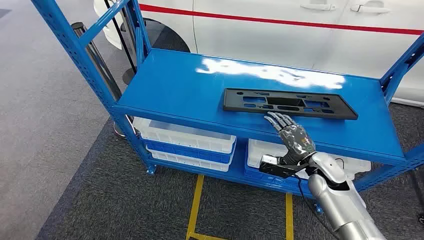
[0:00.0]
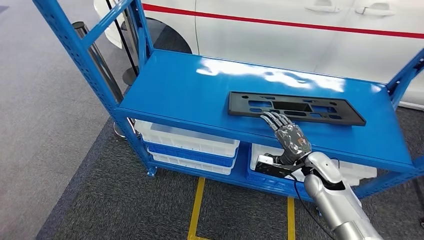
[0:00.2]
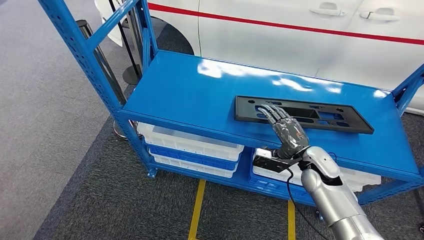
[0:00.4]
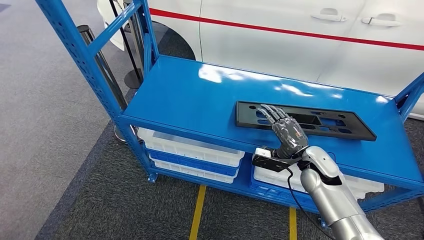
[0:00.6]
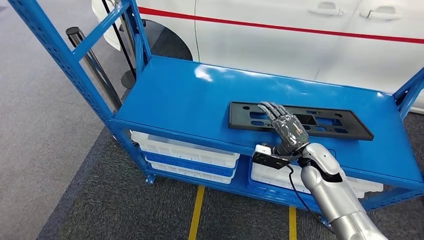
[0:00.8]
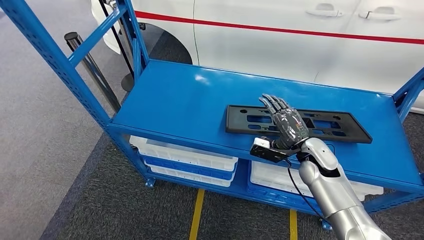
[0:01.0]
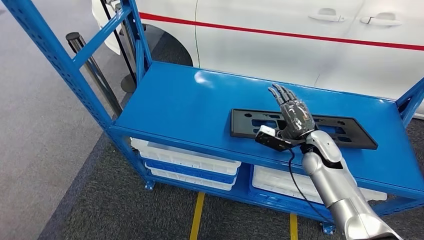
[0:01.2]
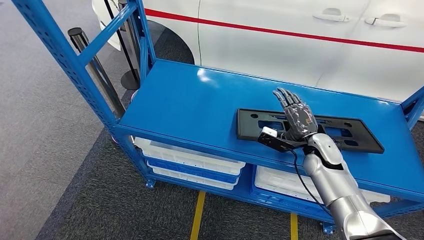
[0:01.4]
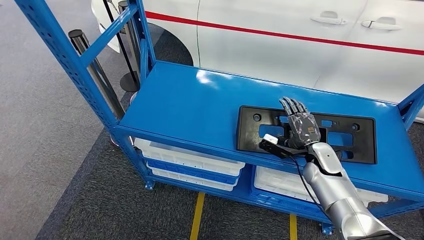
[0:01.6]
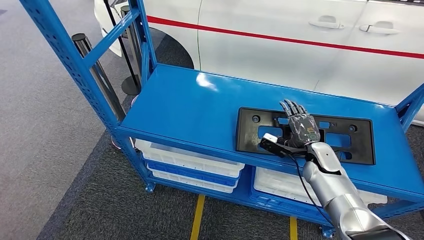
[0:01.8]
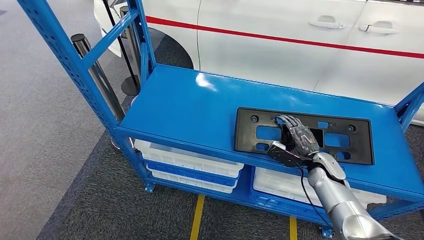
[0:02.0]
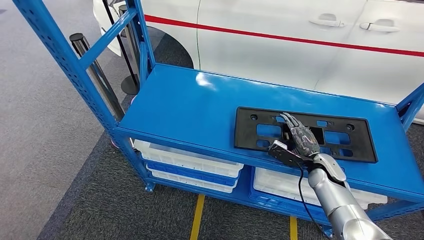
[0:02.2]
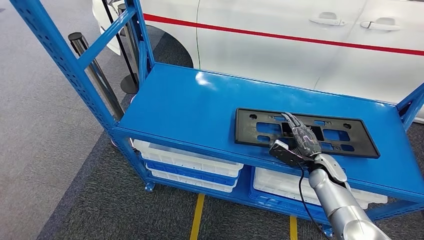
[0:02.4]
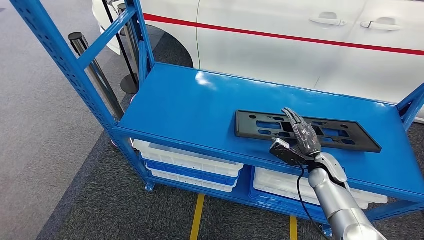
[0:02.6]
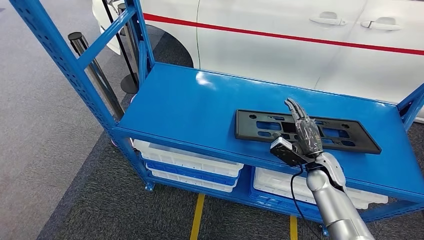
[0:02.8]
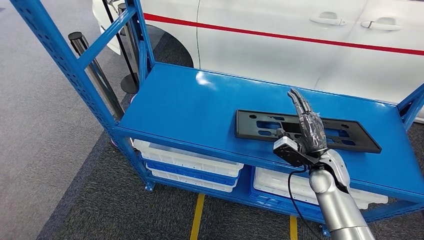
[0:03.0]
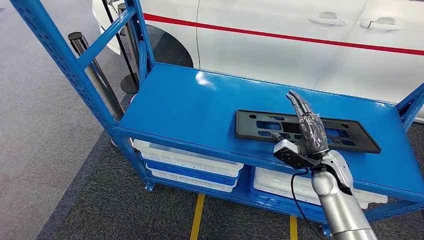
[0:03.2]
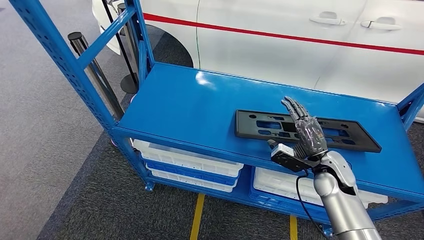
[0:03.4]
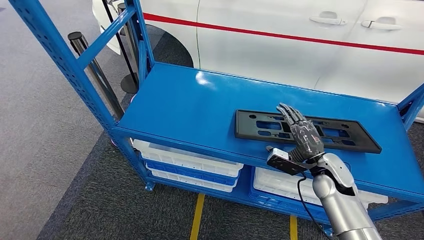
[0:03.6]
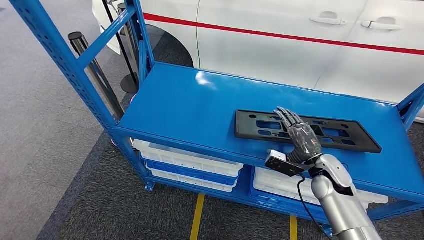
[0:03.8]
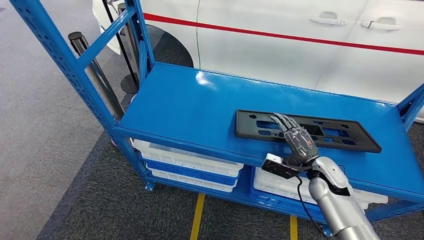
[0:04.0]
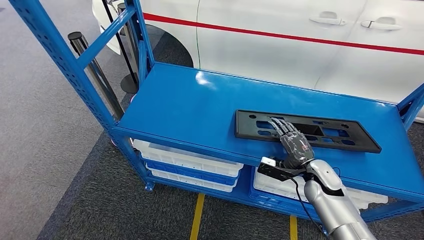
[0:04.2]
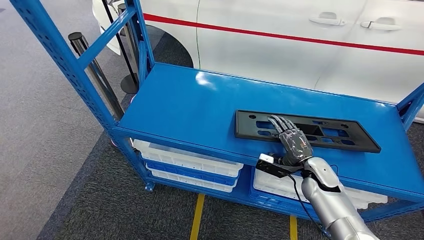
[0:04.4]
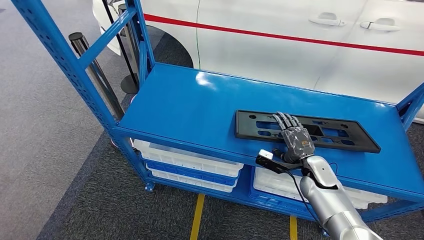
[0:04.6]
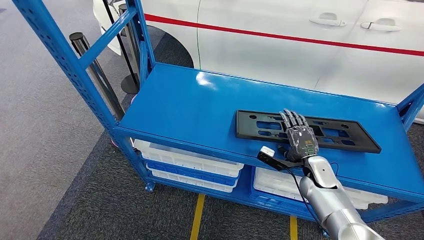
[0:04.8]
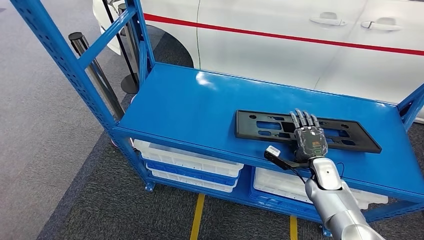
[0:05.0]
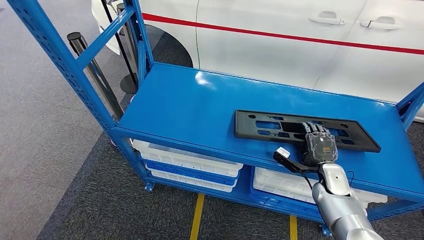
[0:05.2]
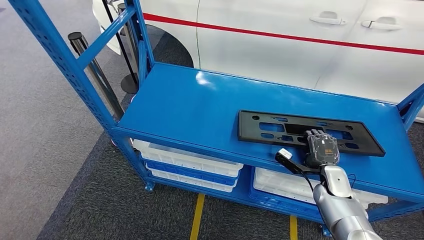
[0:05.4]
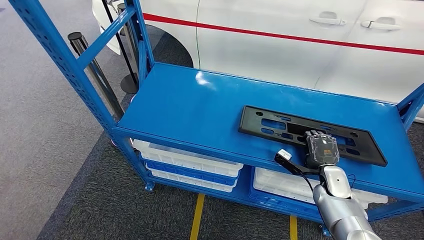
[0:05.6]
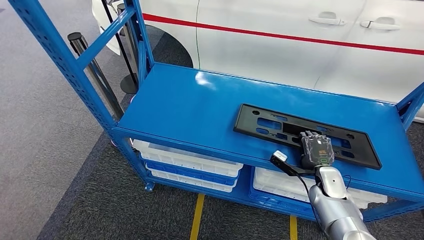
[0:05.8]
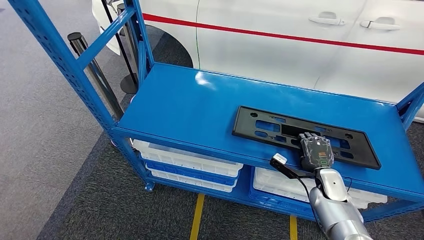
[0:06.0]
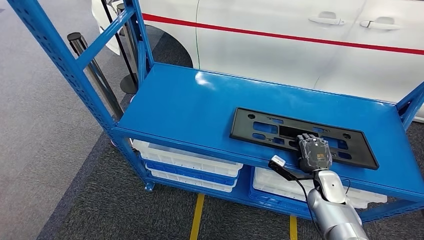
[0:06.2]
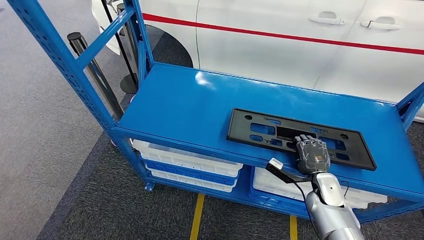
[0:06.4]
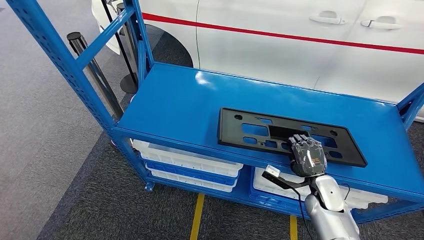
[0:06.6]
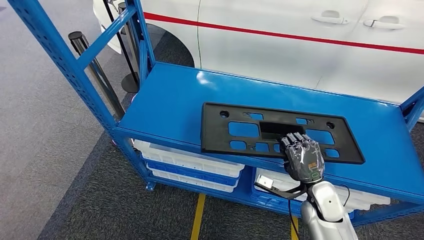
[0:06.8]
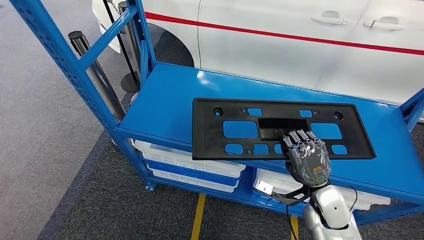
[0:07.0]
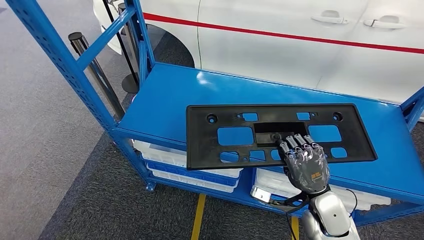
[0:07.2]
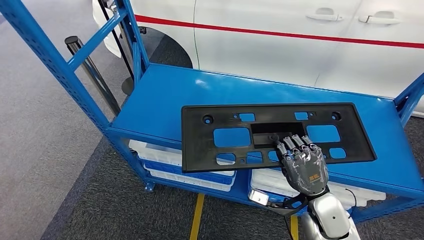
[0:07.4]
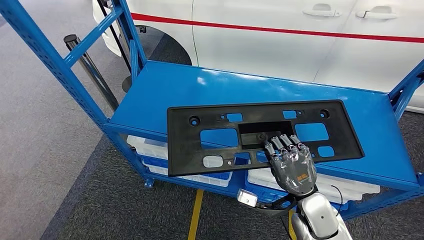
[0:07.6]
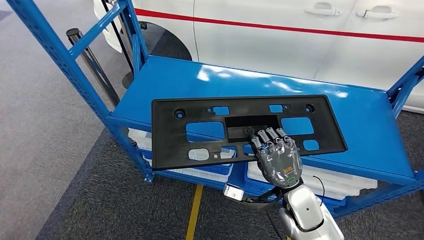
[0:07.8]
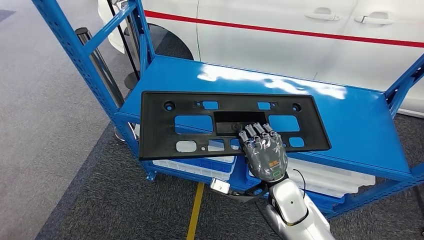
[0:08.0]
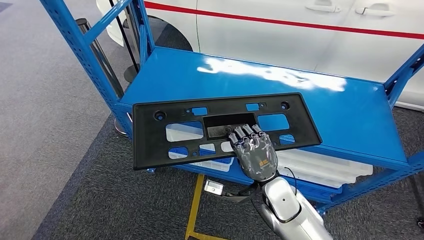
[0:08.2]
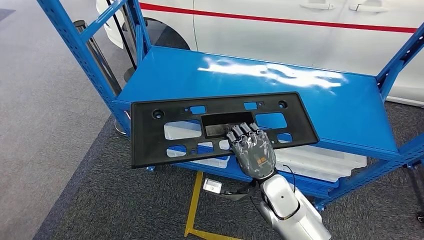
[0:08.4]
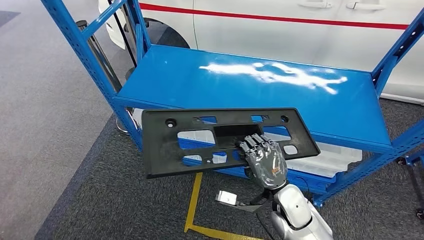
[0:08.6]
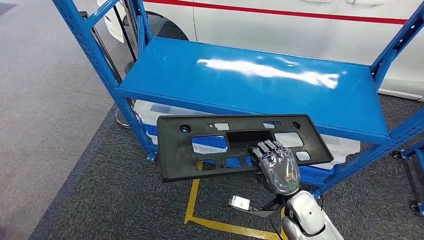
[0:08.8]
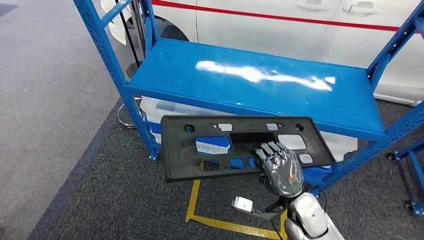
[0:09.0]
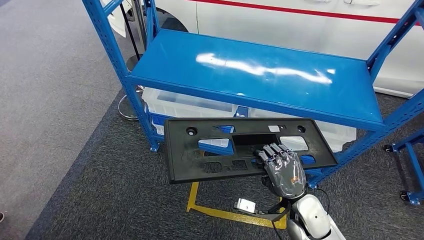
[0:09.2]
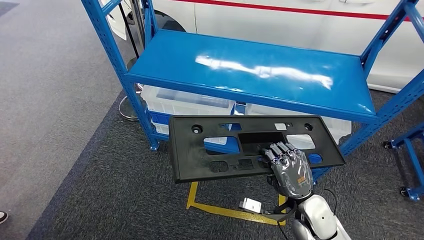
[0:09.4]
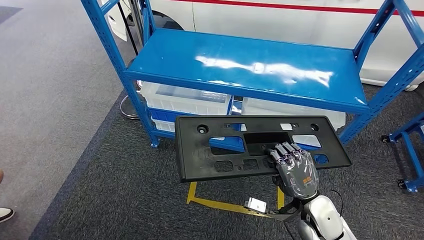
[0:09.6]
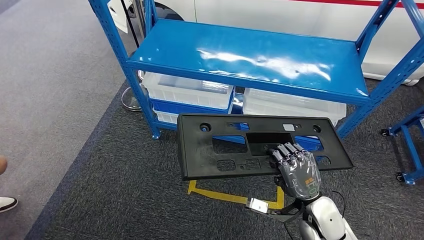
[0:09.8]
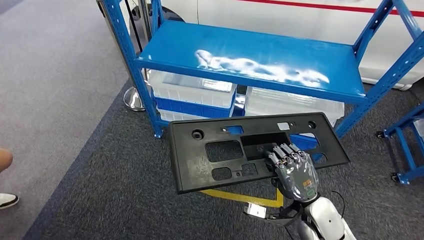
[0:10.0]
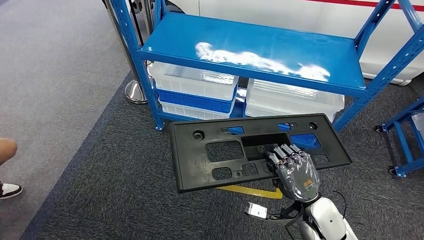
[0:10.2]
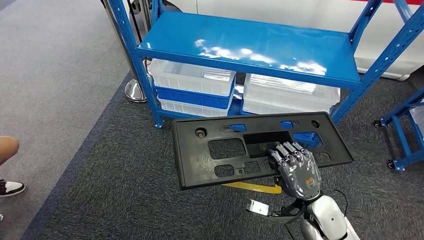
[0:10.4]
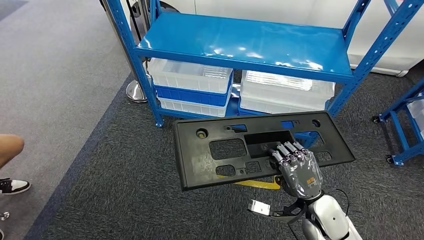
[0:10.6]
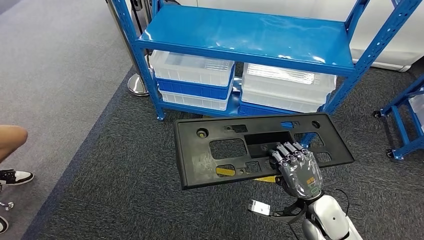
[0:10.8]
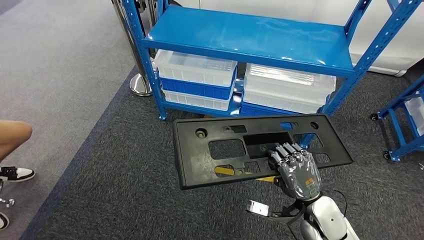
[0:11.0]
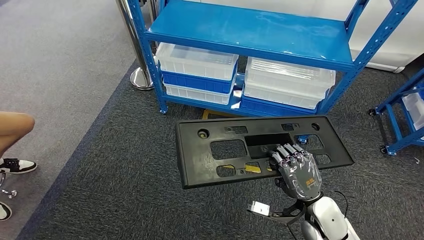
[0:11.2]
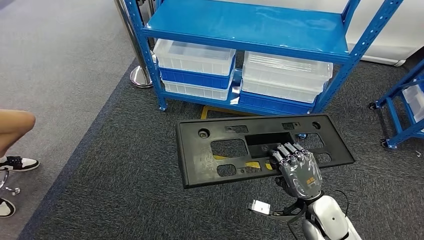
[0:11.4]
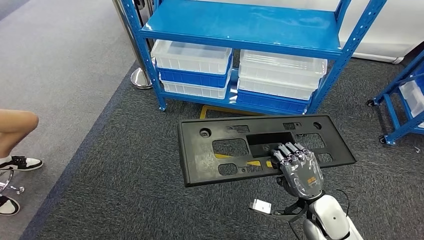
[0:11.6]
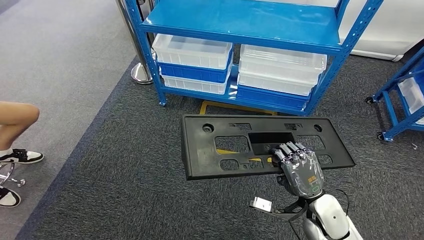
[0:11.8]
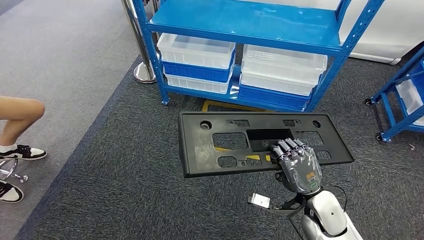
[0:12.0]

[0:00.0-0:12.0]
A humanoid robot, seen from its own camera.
Step, 0:00.0 to 0:08.6: Pick up the large material from the shelf.
0:01.6 to 0:03.0: The right hand shifts by roughly 5 cm.
0:03.0 to 0:04.4: The right hand travels downward by some 5 cm.

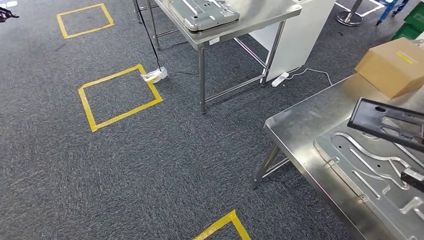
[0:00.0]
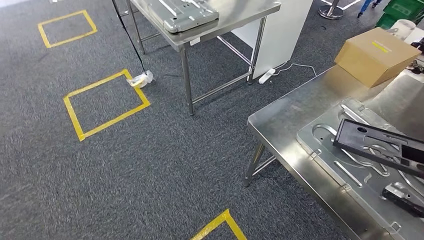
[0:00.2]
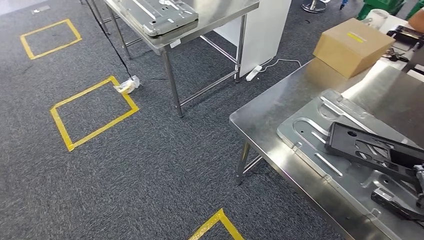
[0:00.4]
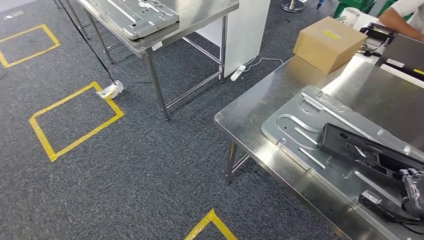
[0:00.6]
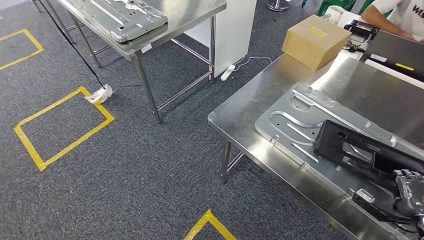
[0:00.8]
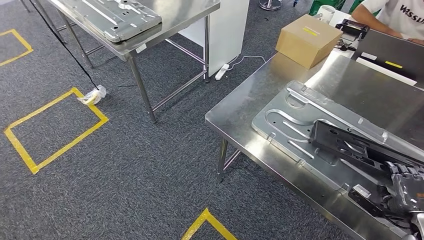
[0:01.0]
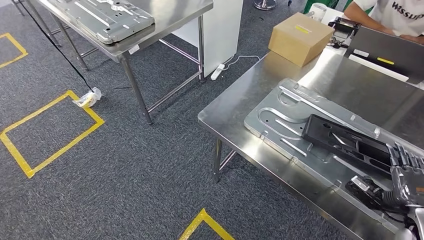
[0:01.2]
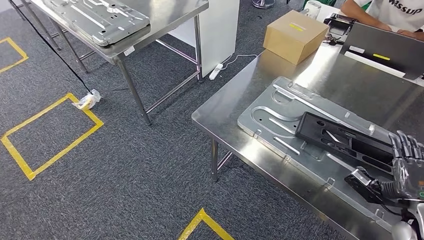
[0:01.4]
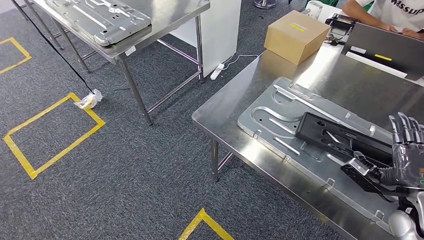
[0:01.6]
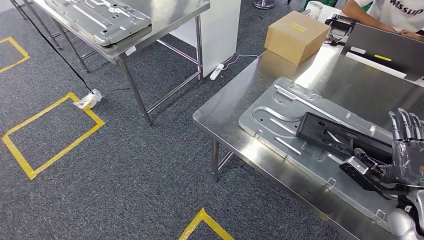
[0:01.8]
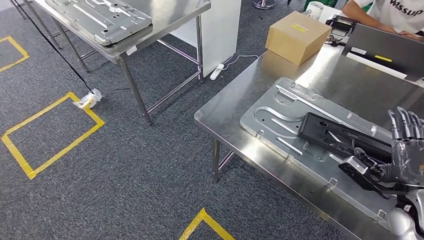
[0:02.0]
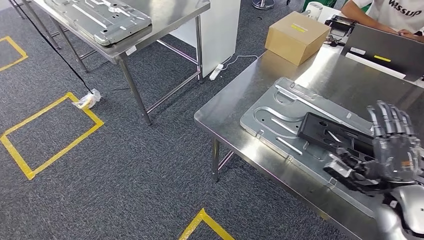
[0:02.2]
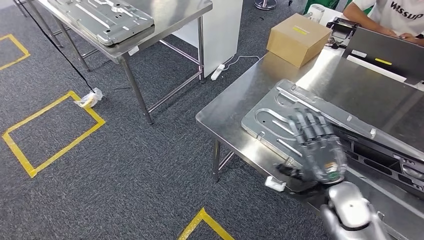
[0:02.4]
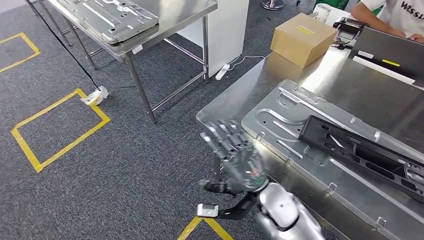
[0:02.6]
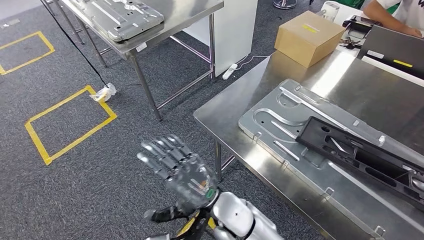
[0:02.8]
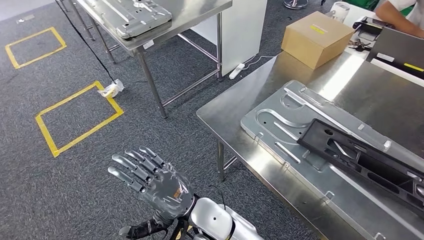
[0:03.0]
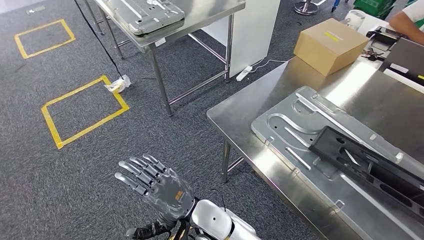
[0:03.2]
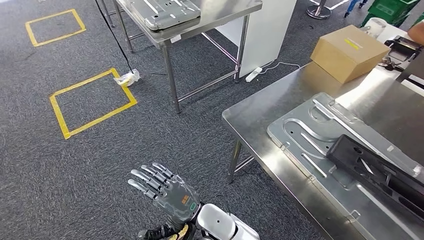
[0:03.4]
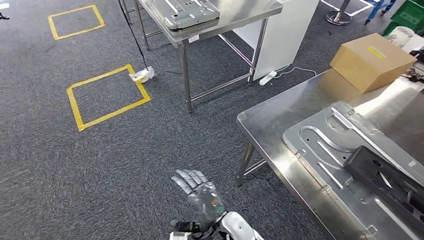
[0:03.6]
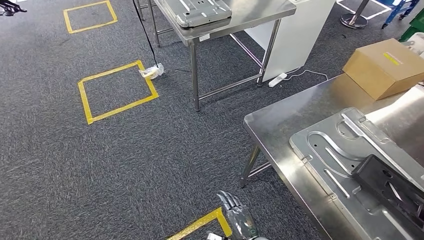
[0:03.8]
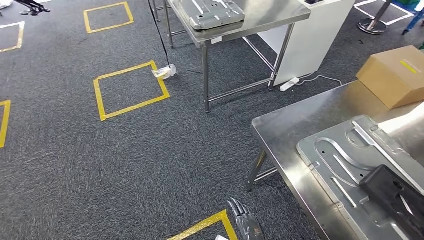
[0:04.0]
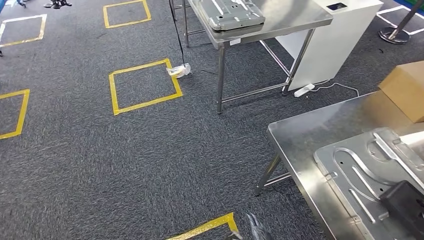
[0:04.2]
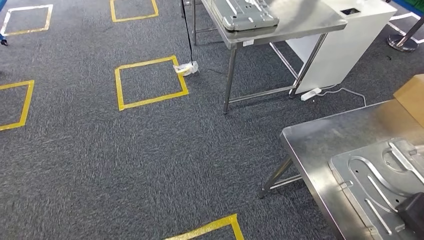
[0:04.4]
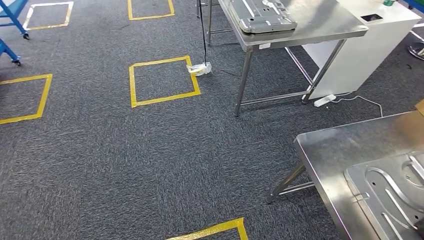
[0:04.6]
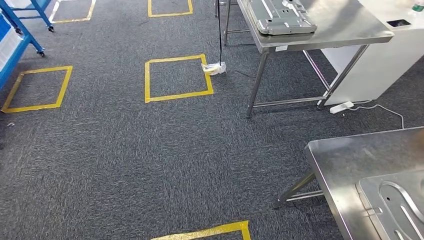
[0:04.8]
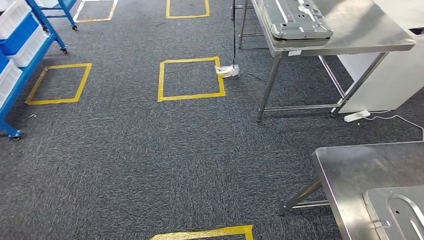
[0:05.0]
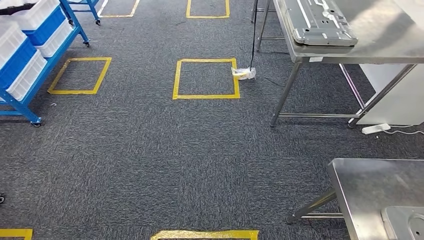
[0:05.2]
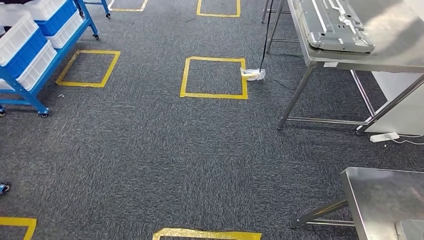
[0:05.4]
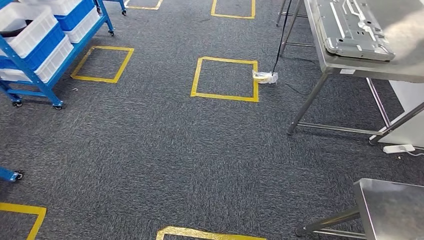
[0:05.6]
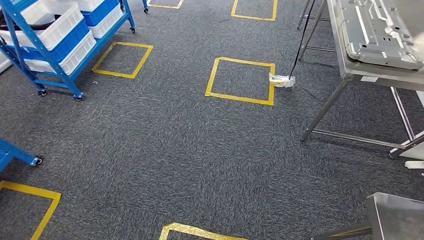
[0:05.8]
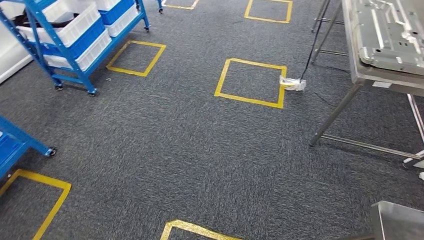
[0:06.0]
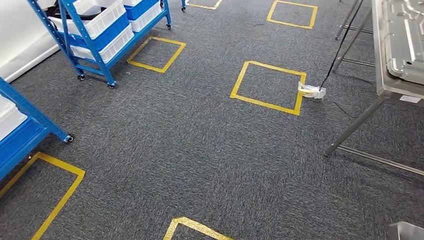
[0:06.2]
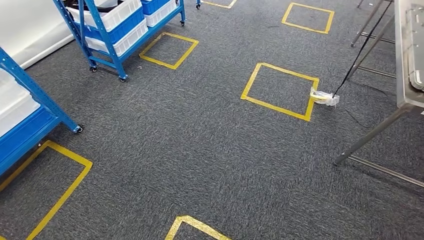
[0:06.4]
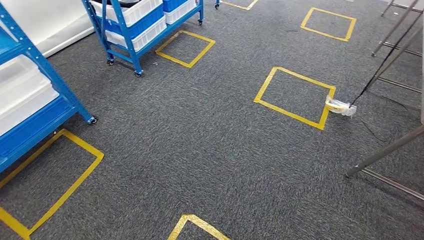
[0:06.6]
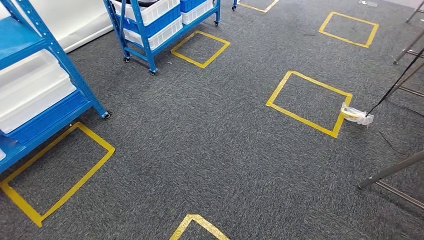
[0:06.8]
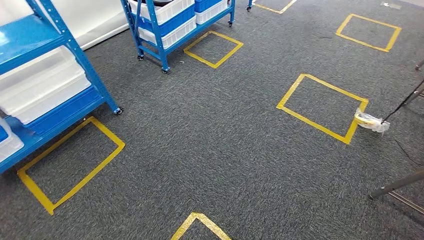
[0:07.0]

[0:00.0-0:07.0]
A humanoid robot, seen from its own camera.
Step, 0:00.0 to 0:04.0: Insert the large material into the corresponding hole on the workbench.
